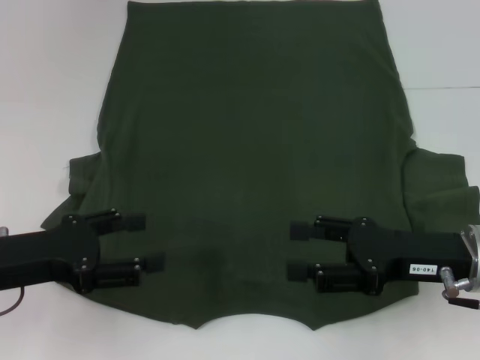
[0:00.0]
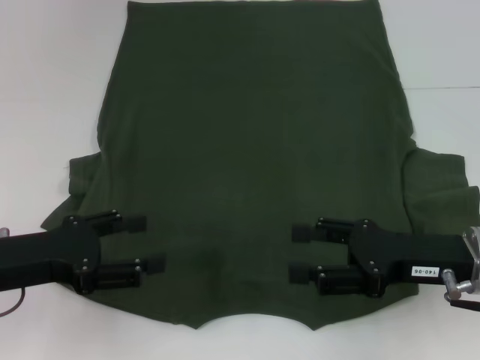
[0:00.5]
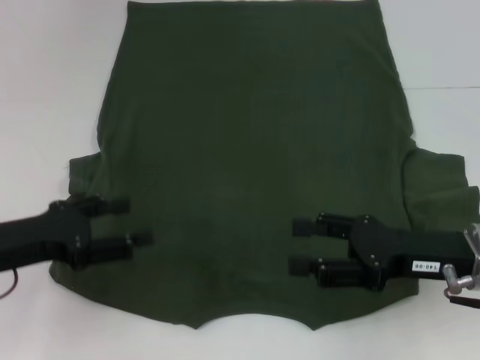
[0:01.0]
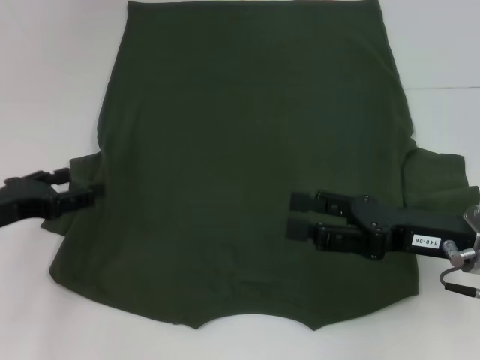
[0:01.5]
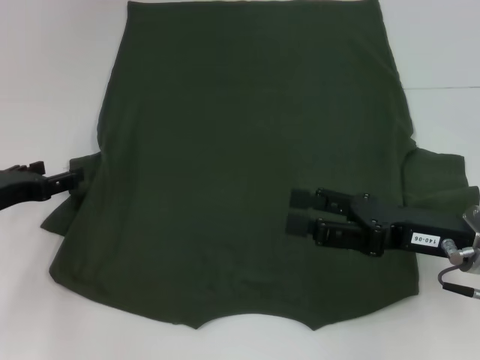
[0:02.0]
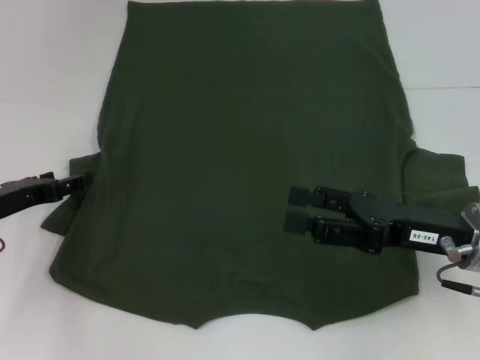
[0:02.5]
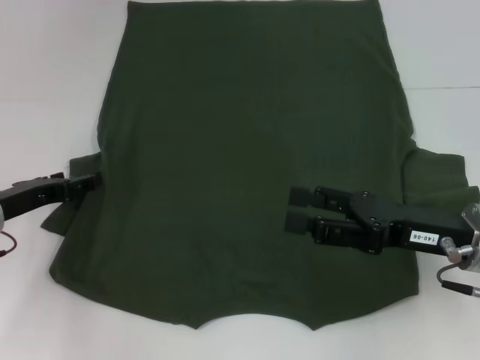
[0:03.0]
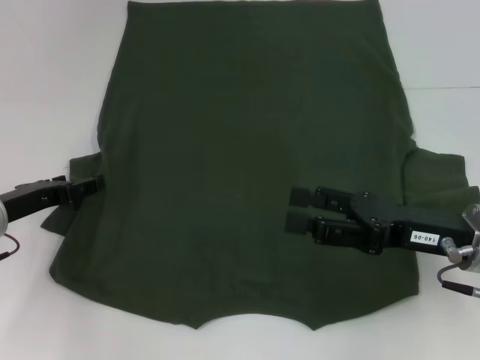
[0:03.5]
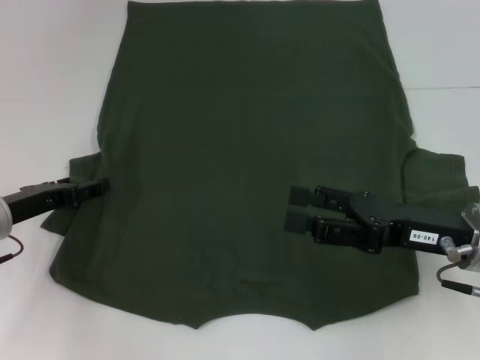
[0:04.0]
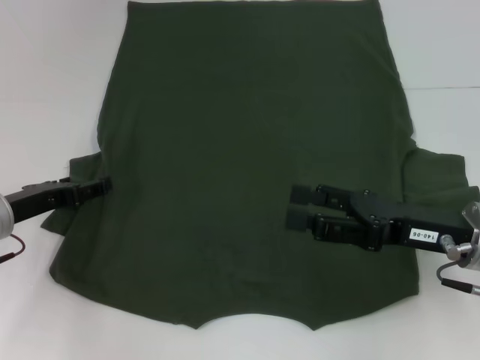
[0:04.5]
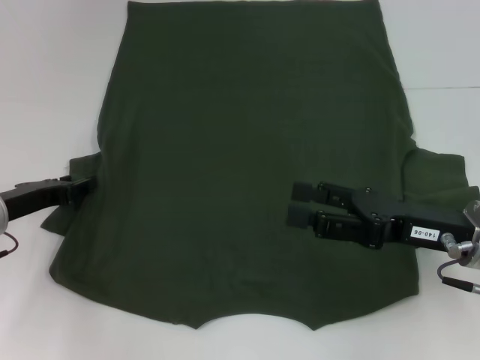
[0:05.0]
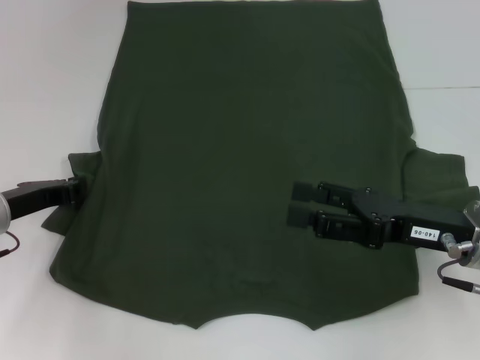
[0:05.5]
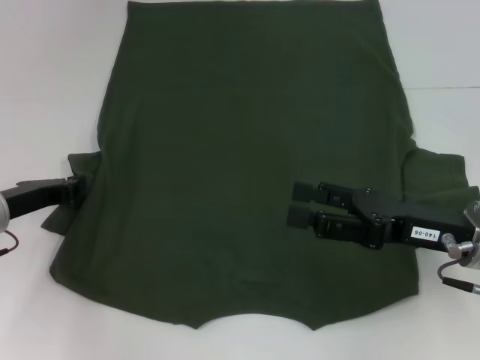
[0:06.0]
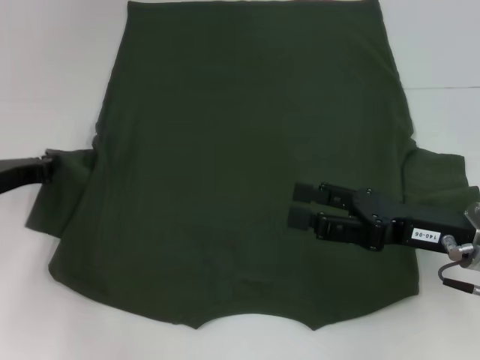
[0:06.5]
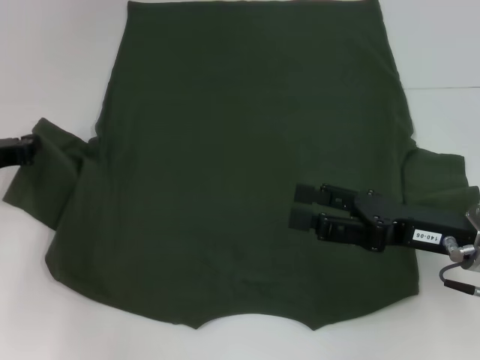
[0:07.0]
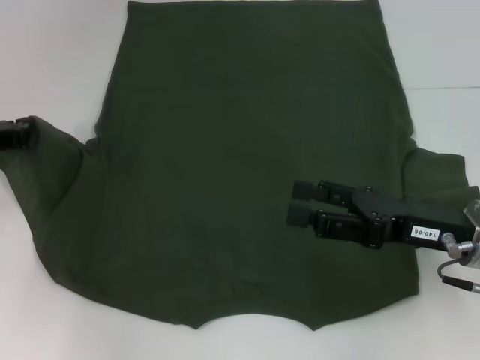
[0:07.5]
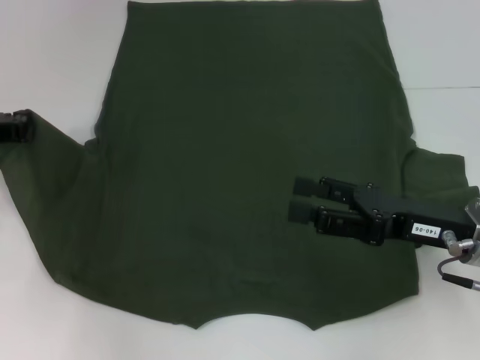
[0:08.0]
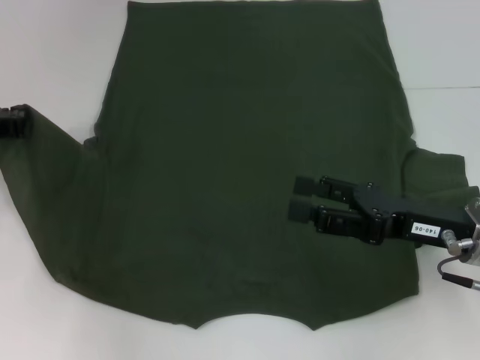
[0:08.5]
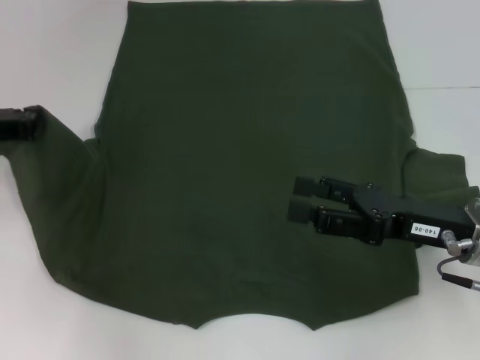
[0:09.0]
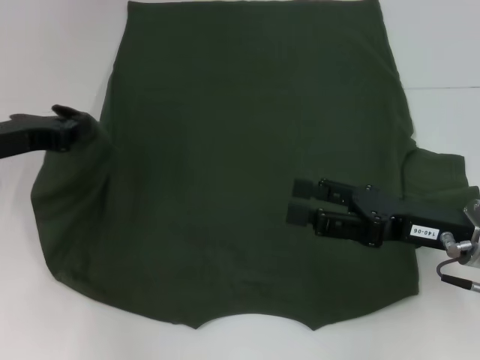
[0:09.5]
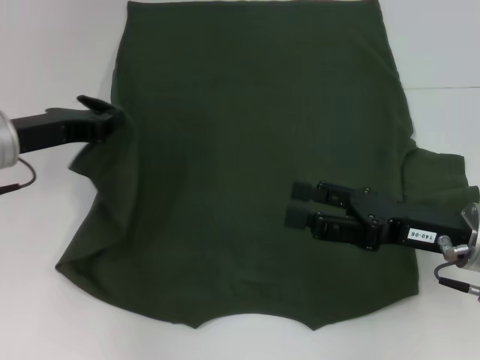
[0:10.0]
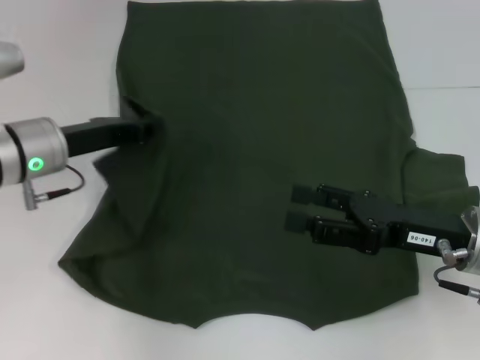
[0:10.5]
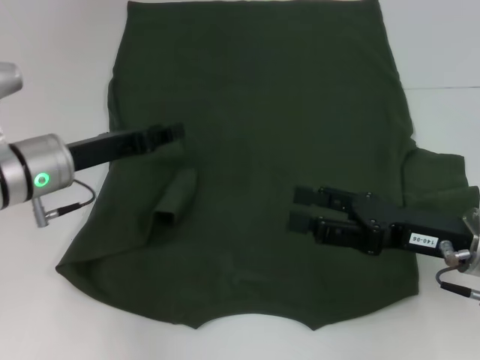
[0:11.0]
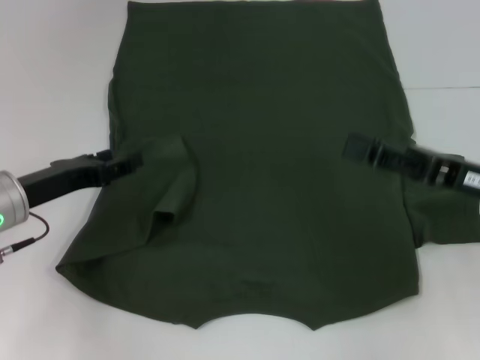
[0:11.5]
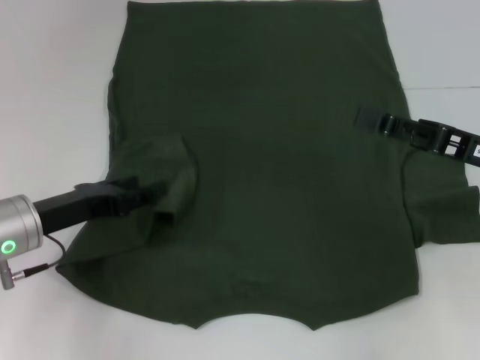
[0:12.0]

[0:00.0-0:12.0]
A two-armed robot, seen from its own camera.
Step, 0:00.0 to 0:11.5: Fold the bottom left sleeve with your left hand.
0:00.0 to 0:02.0: The left gripper travels forward by some 5 cm.
0:02.0 to 0:04.0: The grippers make only small movements.
0:04.0 to 0:06.0: The left gripper closes.
0:06.0 to 0:08.0: The left gripper shifts about 5 cm upward.
0:08.0 to 0:10.0: The left gripper goes some 5 cm to the right.
0:10.0 to 0:12.0: The left gripper is displaced downward by approximately 5 cm, and opens; the right gripper goes approximately 5 cm to the right.

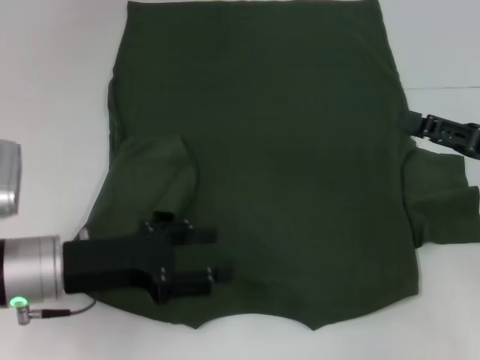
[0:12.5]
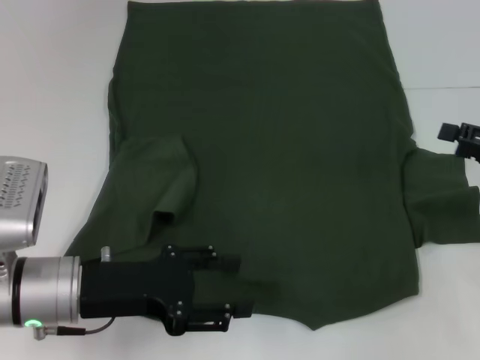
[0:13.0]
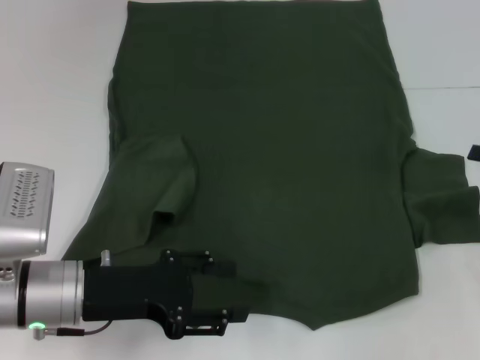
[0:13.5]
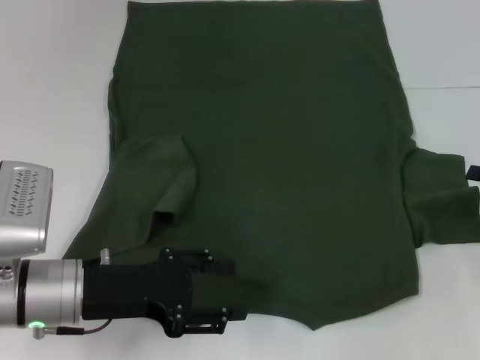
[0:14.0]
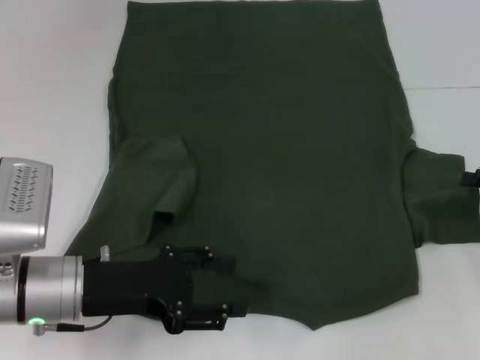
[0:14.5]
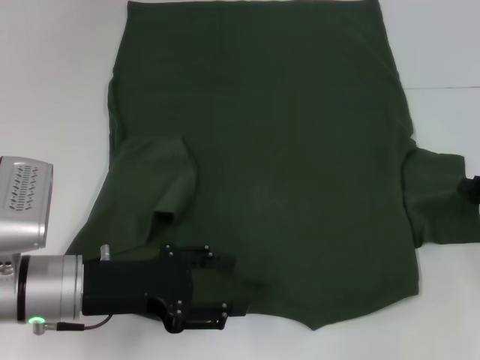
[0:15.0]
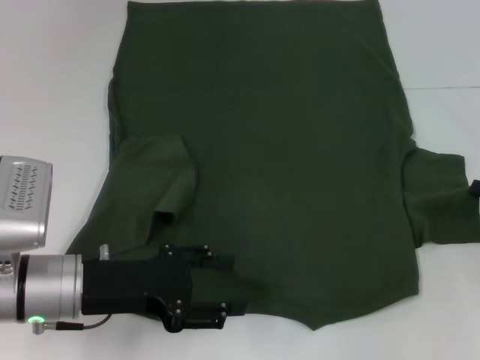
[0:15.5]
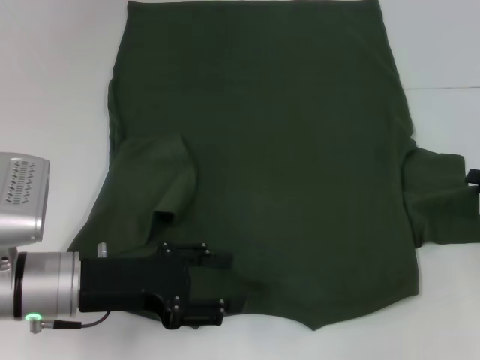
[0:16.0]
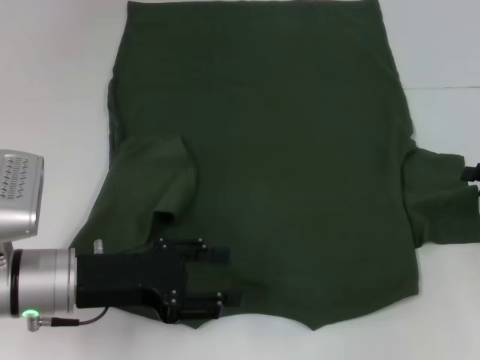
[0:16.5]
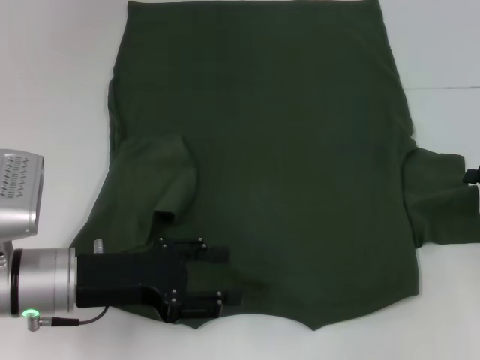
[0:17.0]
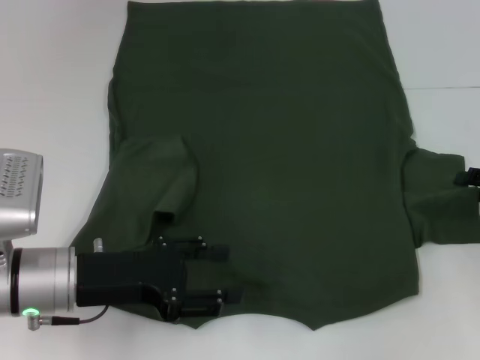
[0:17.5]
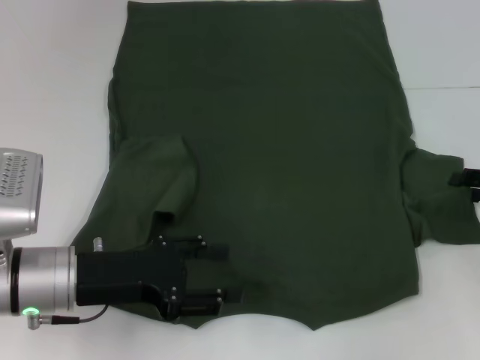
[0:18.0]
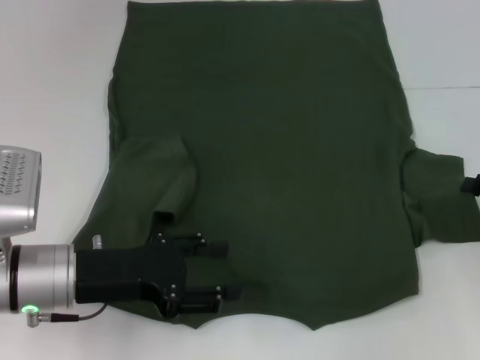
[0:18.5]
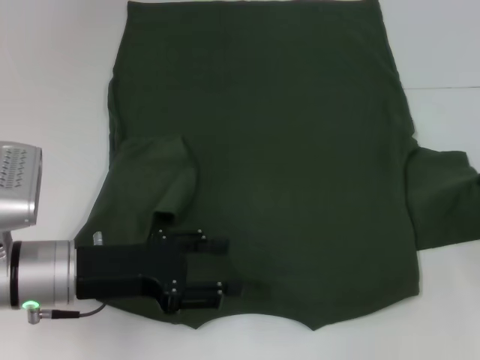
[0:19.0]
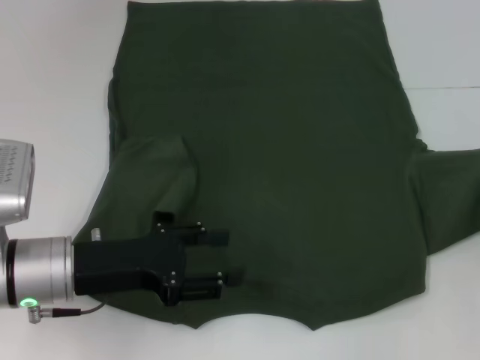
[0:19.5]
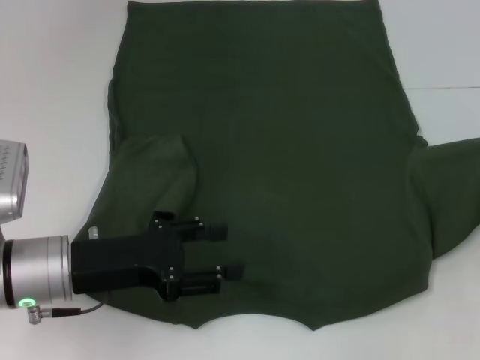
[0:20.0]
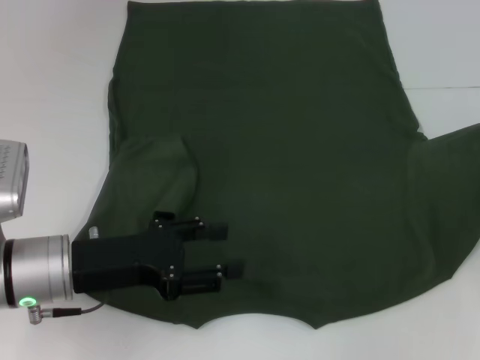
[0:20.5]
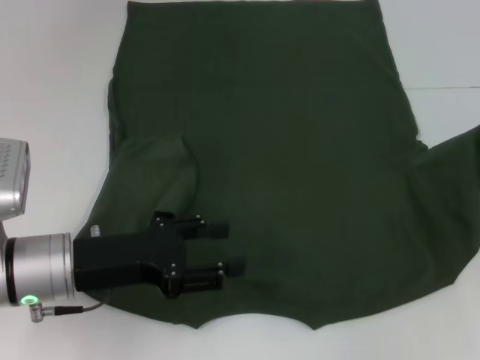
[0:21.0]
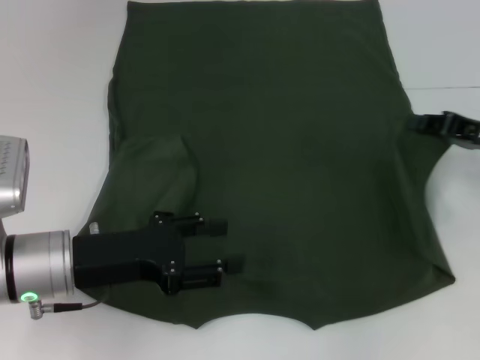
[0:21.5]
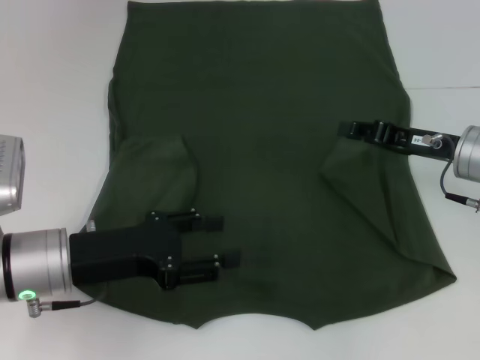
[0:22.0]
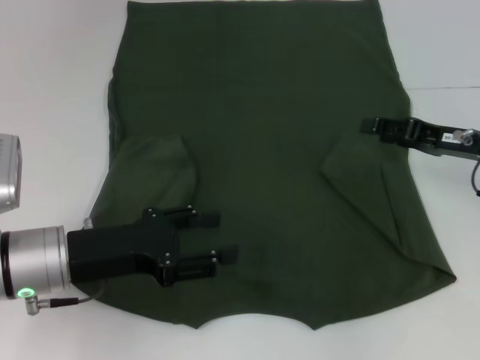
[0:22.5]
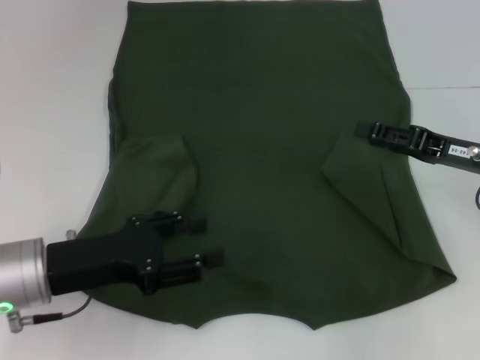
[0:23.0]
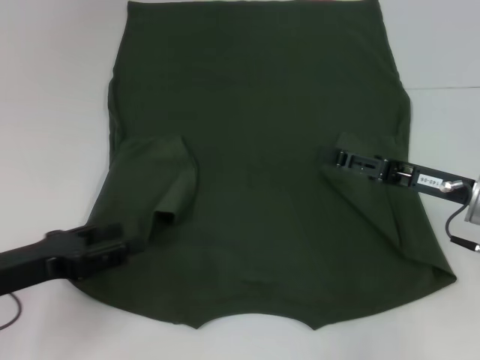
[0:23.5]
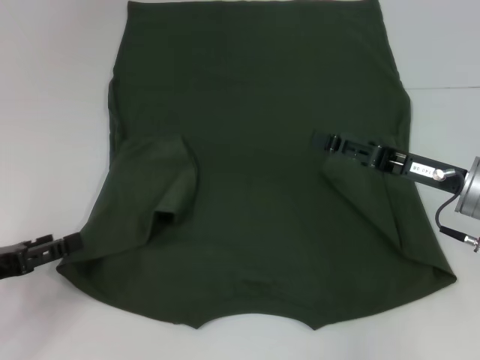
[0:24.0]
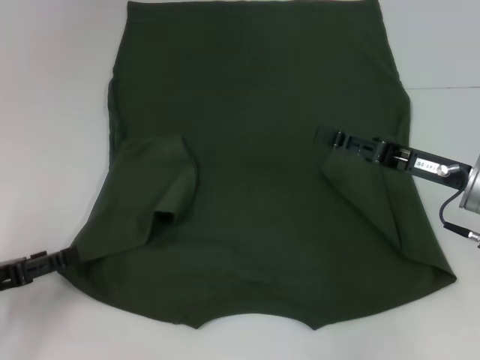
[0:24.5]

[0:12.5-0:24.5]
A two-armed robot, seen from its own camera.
Step, 0:12.5 to 0:22.5: Fold the bottom right sleeve with your right hand.
0:12.5 to 0:14.5: The right gripper travels to the right by approximately 5 cm.
0:14.5 to 0:16.5: The right gripper closes and opens again.
0:16.5 to 0:18.5: The right gripper closes.
0:18.5 to 0:20.5: The right gripper changes place by some 5 cm.
0:20.5 to 0:22.5: The right gripper shifts approximately 10 cm to the left, and opens its fingers.
0:22.5 to 0:24.5: The left gripper goes roughly 15 cm to the left, while the right gripper moves some 5 cm, and opens its fingers.

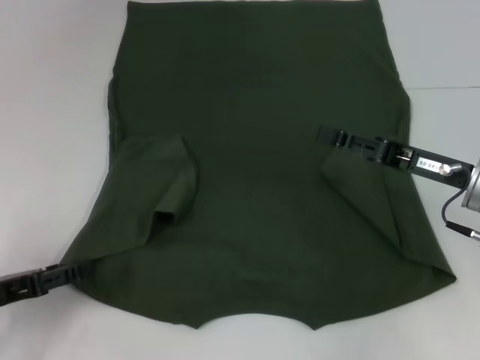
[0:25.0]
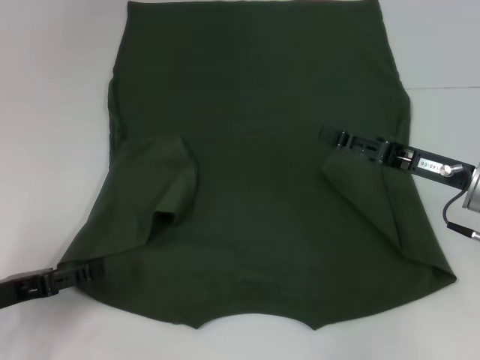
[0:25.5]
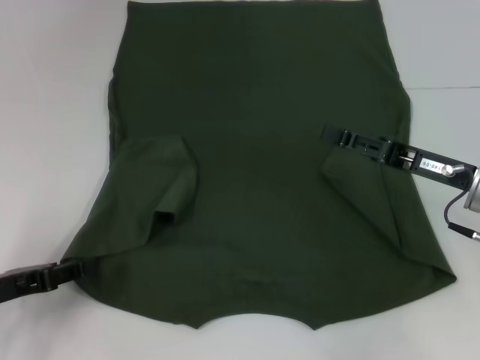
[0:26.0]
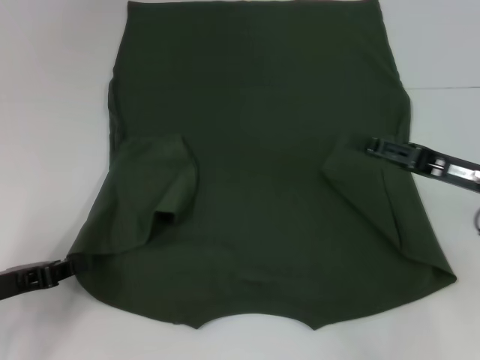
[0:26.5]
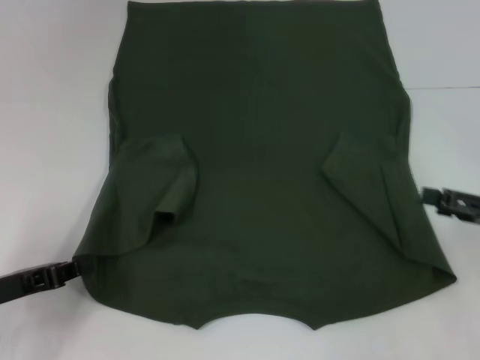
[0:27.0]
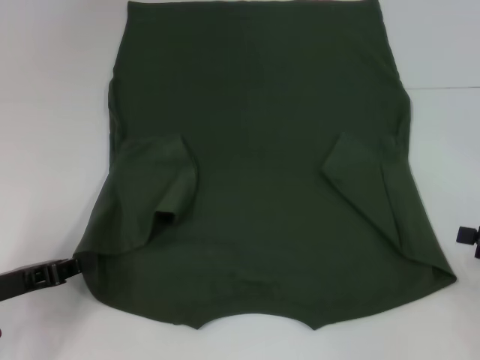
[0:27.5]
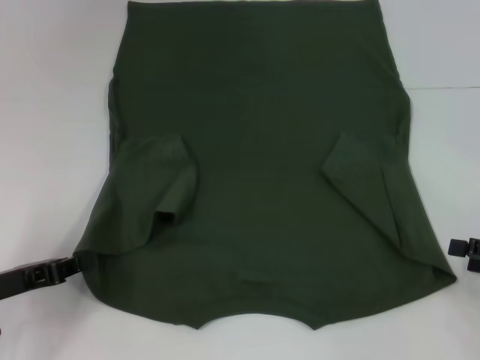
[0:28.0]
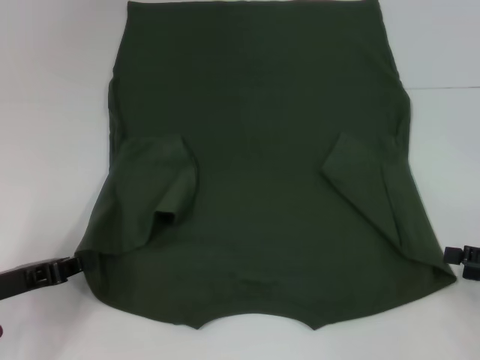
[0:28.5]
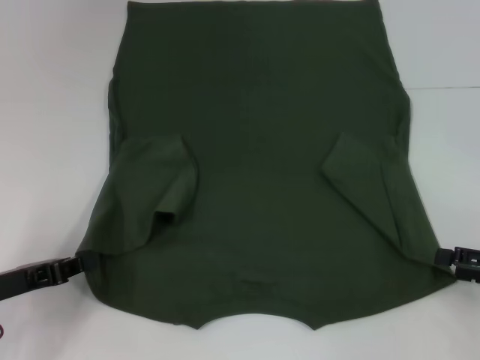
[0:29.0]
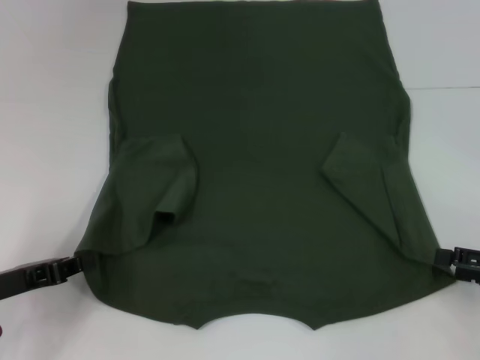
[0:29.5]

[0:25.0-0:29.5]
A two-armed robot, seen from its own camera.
0:25.0 to 0:27.0: The right gripper shifts roughly 10 cm to the right. The left gripper closes.
0:27.0 to 0:29.5: The grippers move only a little.
